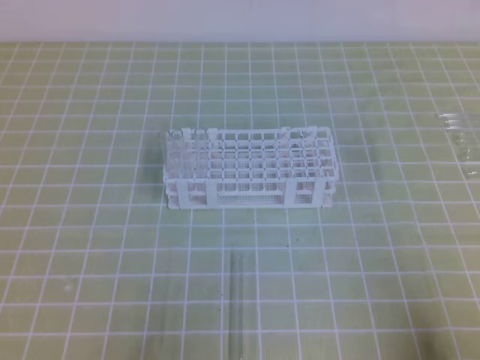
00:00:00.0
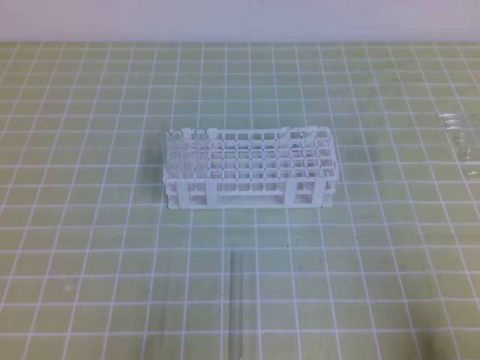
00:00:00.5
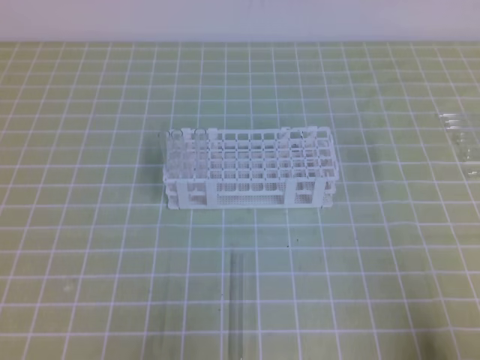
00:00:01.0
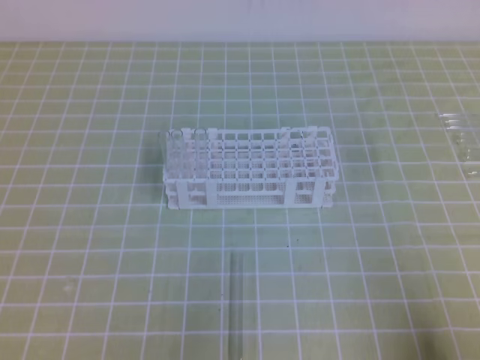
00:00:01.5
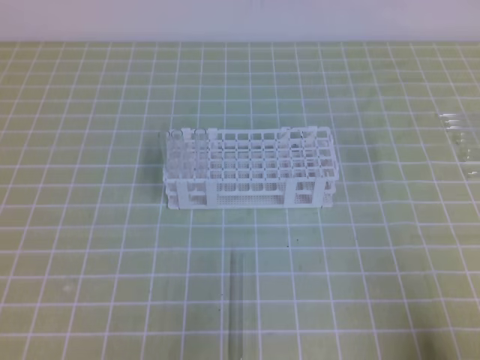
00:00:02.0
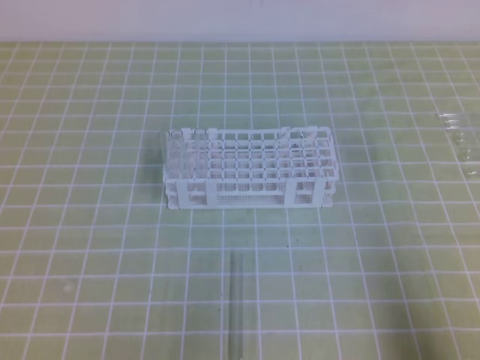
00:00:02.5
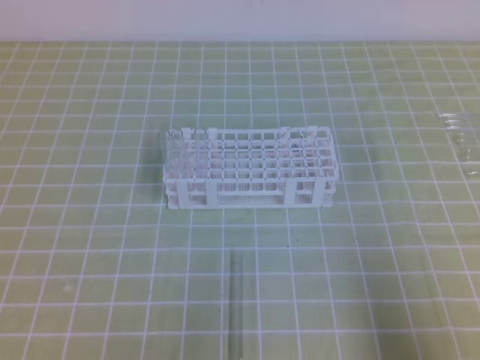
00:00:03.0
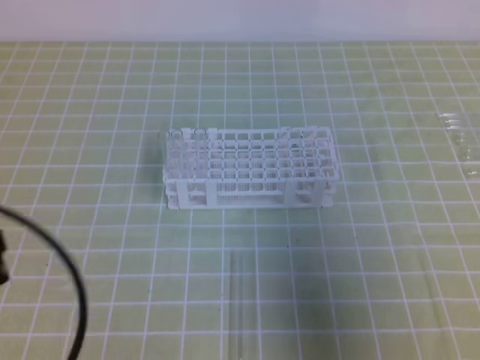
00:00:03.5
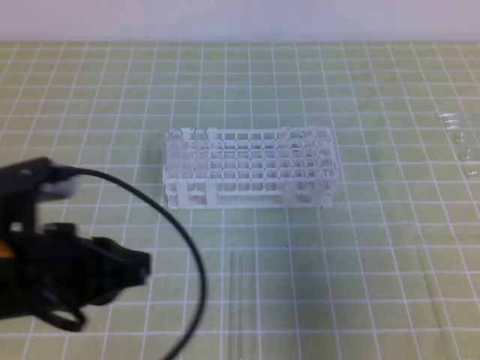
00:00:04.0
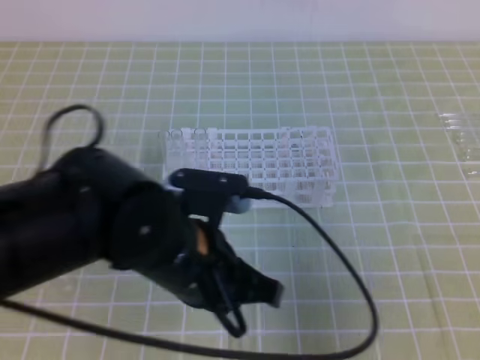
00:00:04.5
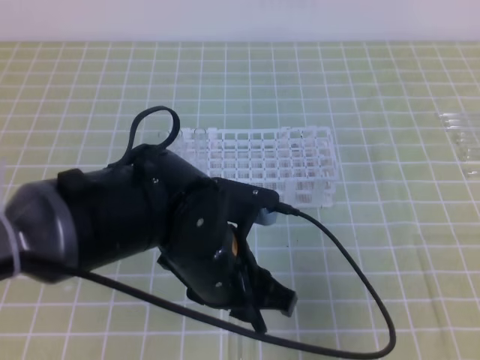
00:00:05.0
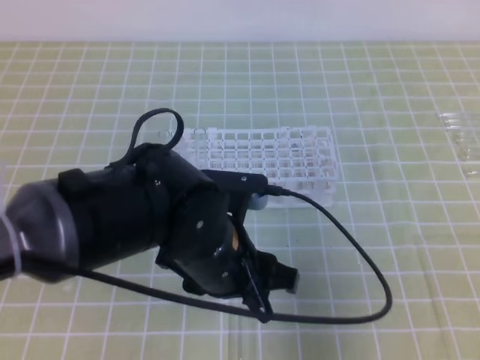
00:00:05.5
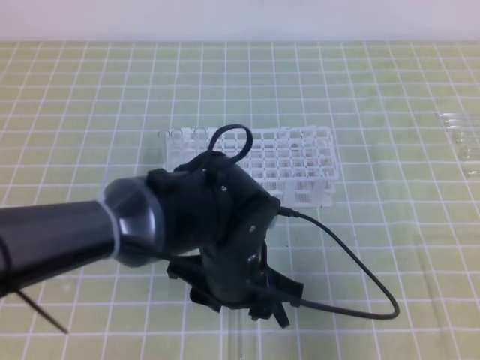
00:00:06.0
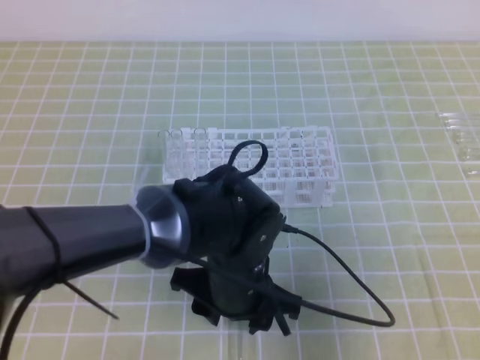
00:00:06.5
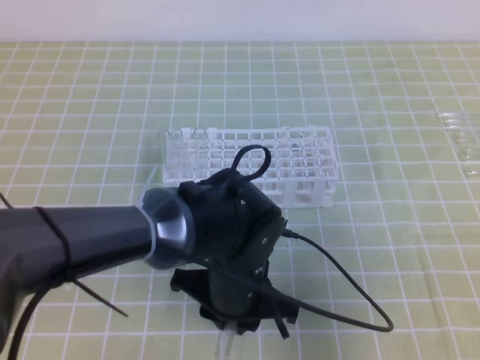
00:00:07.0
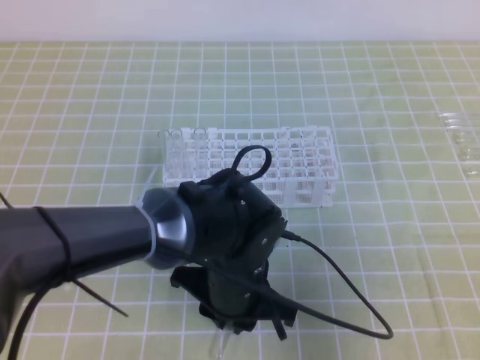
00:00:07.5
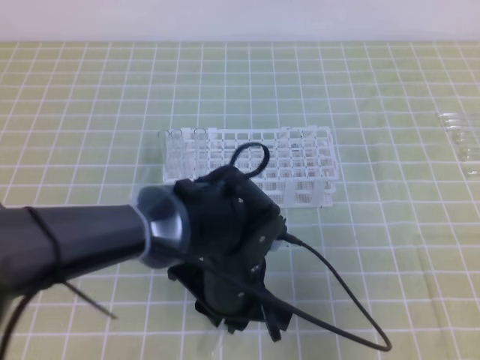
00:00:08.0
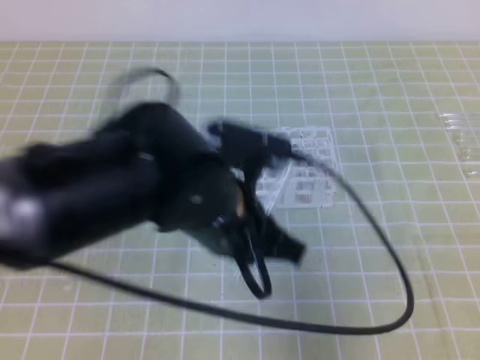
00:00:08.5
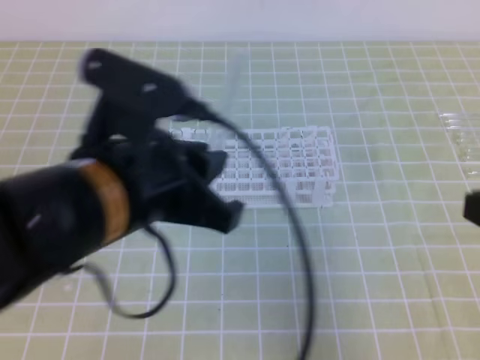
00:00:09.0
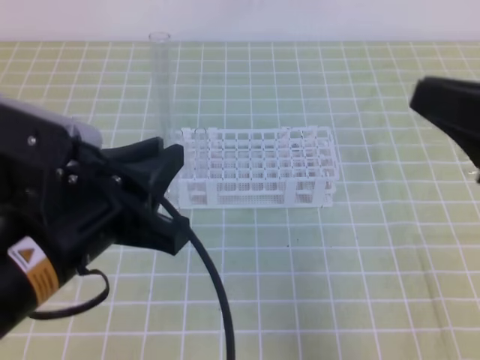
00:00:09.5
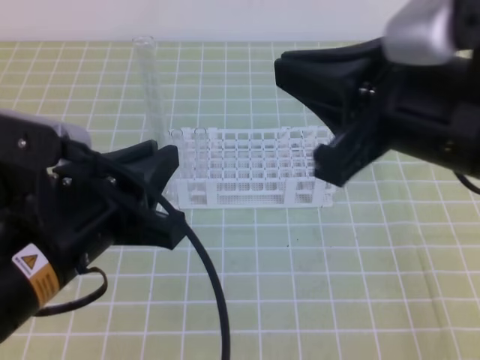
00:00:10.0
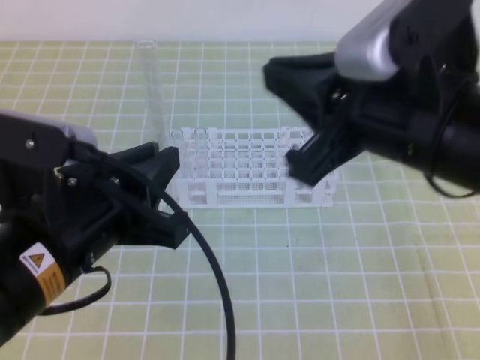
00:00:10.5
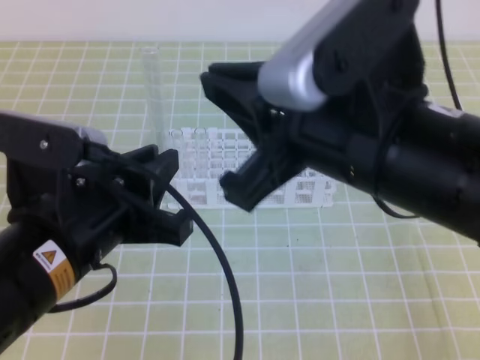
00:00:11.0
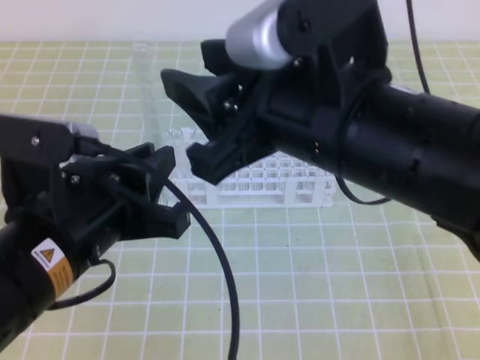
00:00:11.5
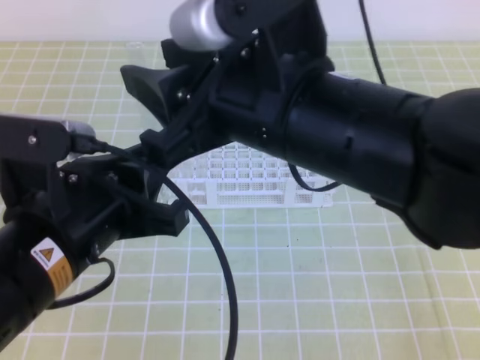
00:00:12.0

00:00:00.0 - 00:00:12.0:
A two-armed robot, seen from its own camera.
00:00:02.0 - 00:00:04.0: The left gripper heads forward, to the right and upward, covering approximately 15 cm. Meanwhile the right gripper shifts about 15 cm upward and forward.
00:00:04.0 - 00:00:06.0: The left gripper is displaced to the right and downward by approximately 20 cm, and opens.
00:00:06.0 - 00:00:08.0: The left gripper closes up.
00:00:08.0 - 00:00:10.0: The right gripper moves to the left, upward and forward, about 15 cm; the left gripper heads upward, to the left and backward, covering some 20 cm.
00:00:10.0 - 00:00:12.0: The right gripper shifts roughly 10 cm to the left, and opens.

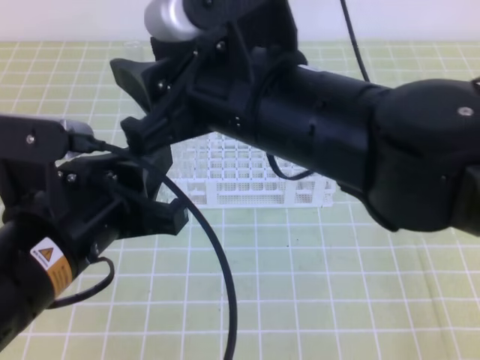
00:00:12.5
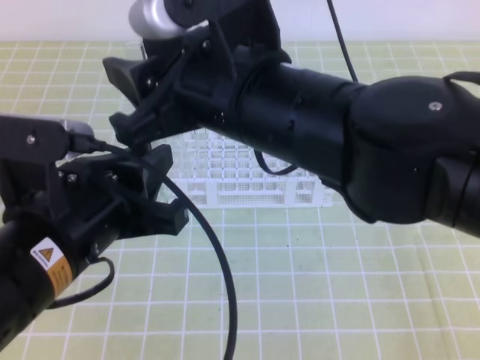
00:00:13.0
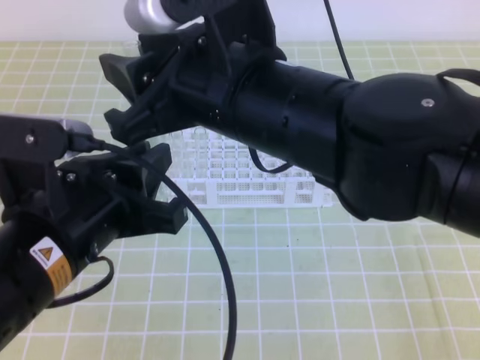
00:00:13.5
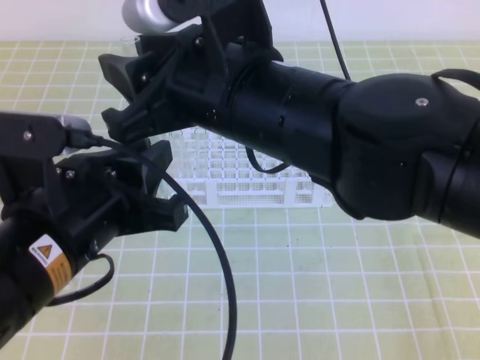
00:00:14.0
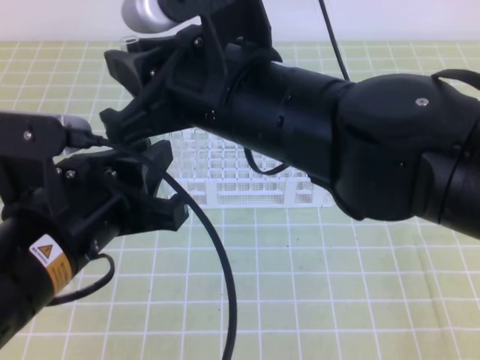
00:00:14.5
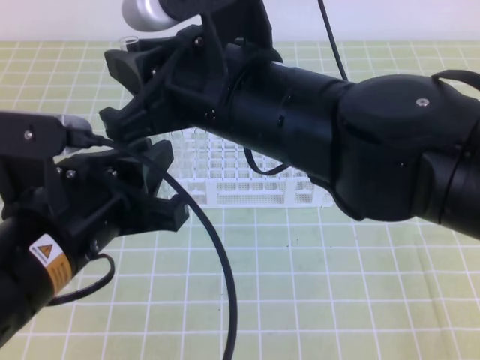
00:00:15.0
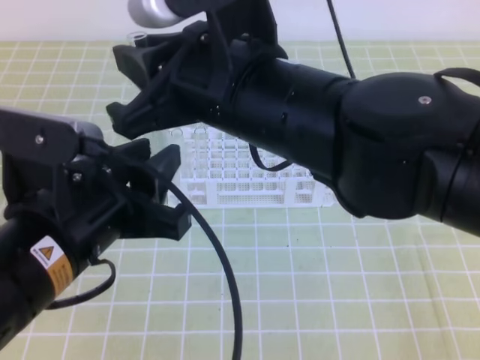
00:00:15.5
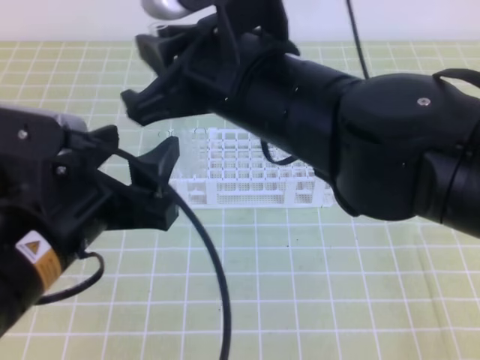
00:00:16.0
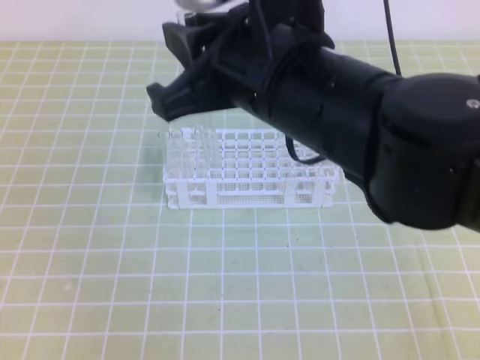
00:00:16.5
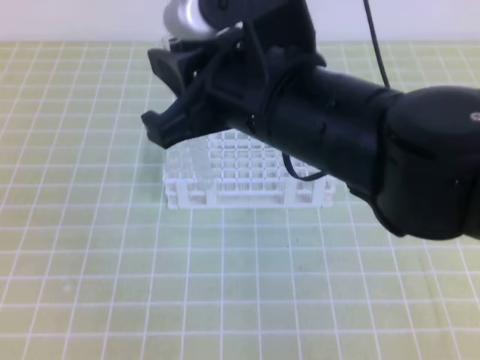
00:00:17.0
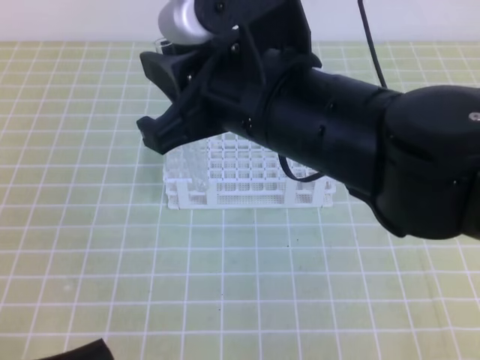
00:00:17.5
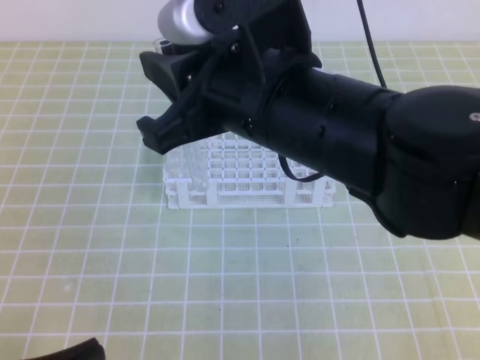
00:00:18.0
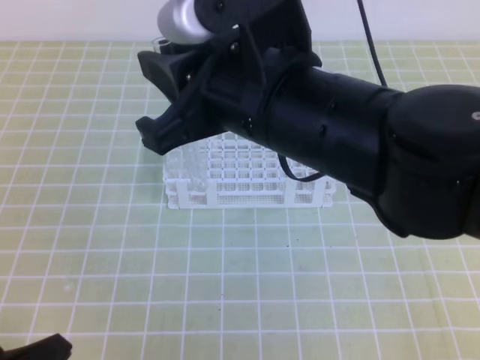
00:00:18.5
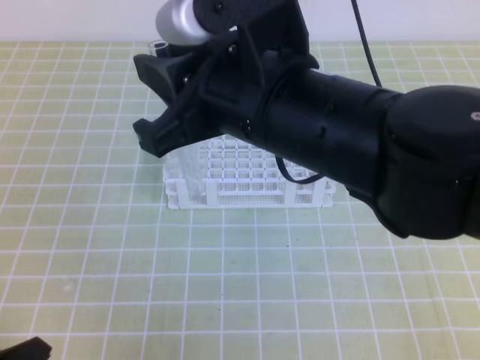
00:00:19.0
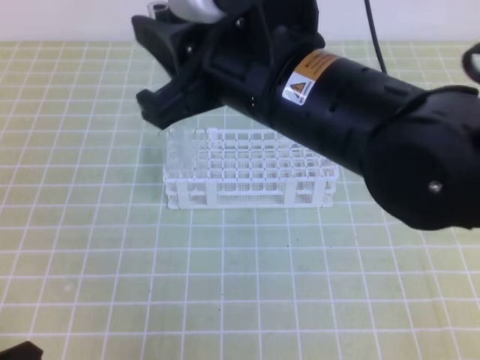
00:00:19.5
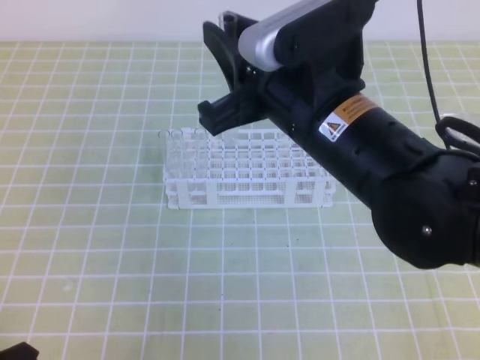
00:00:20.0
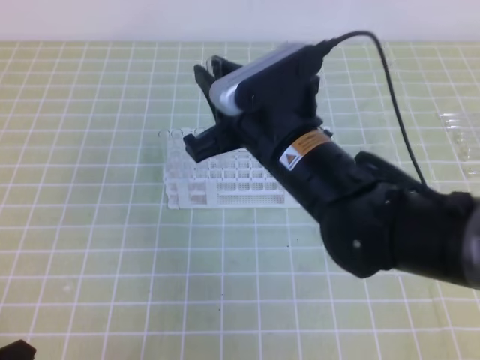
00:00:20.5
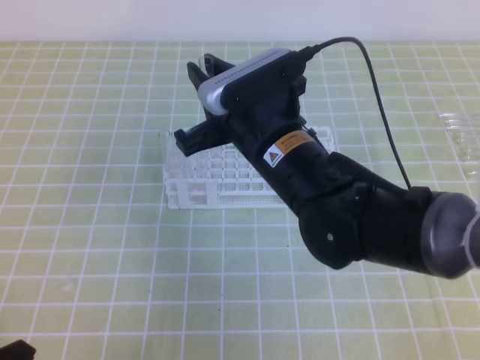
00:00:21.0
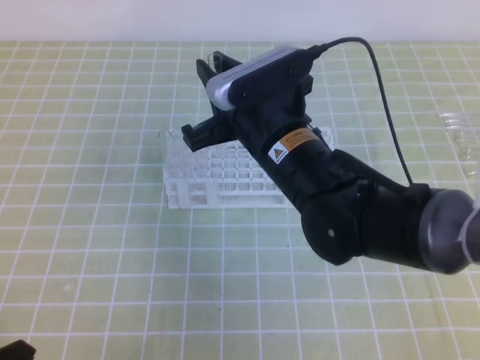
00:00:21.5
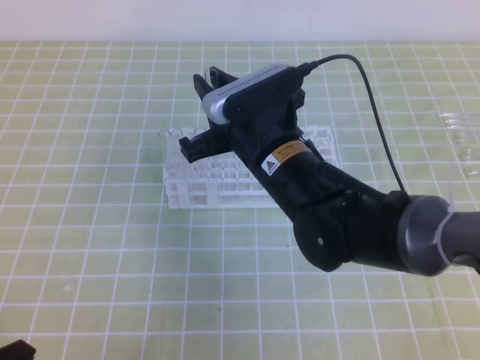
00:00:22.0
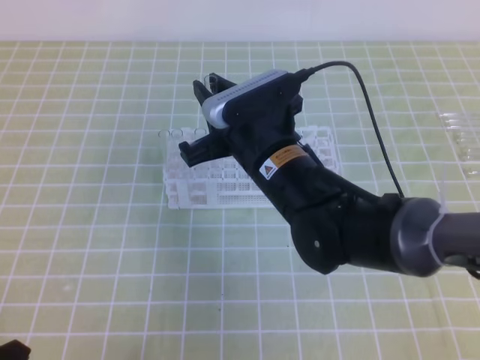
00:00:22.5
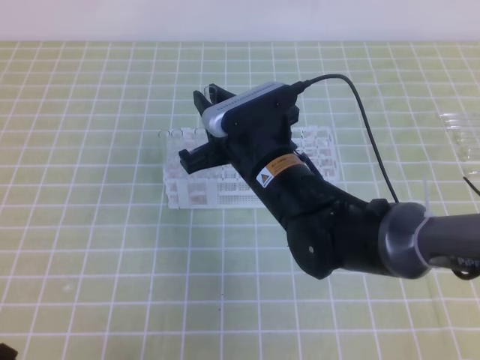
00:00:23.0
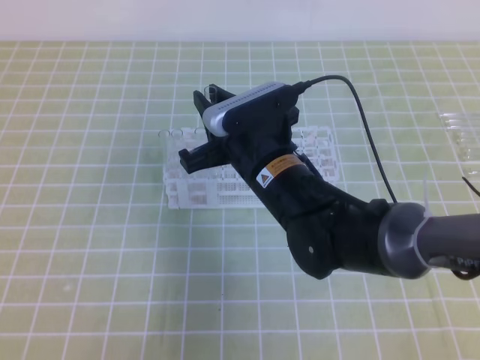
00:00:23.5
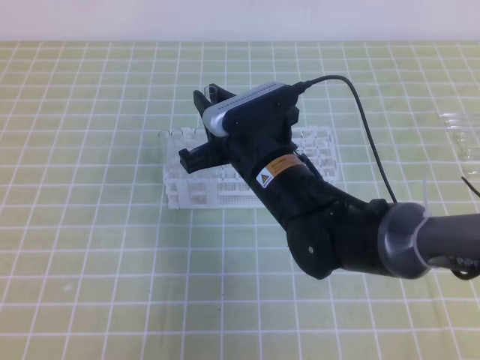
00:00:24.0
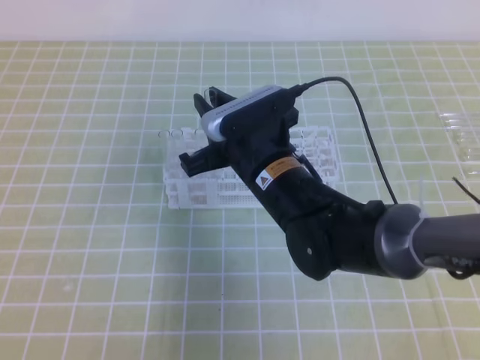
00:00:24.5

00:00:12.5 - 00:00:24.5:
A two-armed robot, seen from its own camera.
00:00:12.5 - 00:00:14.5: The right gripper closes its fingers.
00:00:14.5 - 00:00:16.5: The left gripper travels to the left and backward by approximately 10 cm, and opens, then closes again.
00:00:16.5 - 00:00:18.5: The left gripper moves downward, approximately 15 cm.
00:00:18.5 - 00:00:20.5: The right gripper travels downward and forward by roughly 10 cm.
00:00:20.5 - 00:00:22.5: The right gripper travels downward by roughly 5 cm.
00:00:22.5 - 00:00:24.5: The left gripper moves approximately 5 cm.

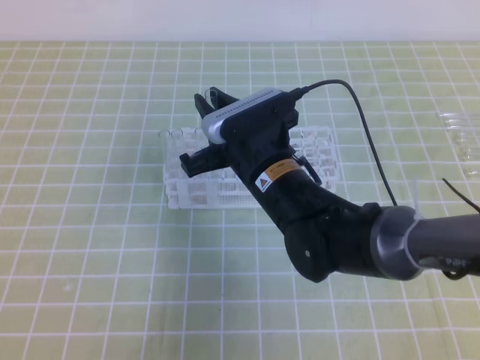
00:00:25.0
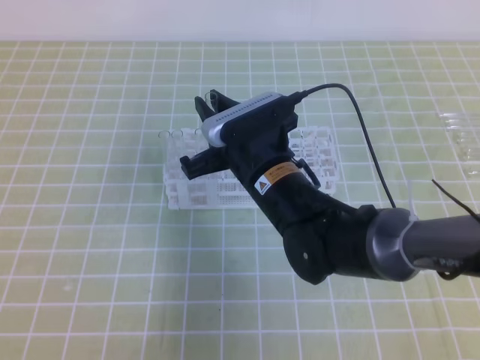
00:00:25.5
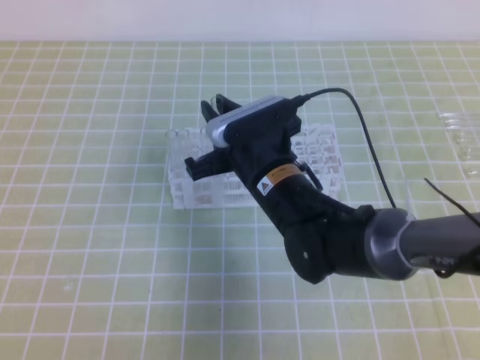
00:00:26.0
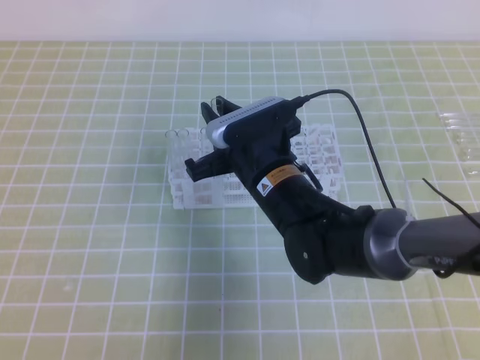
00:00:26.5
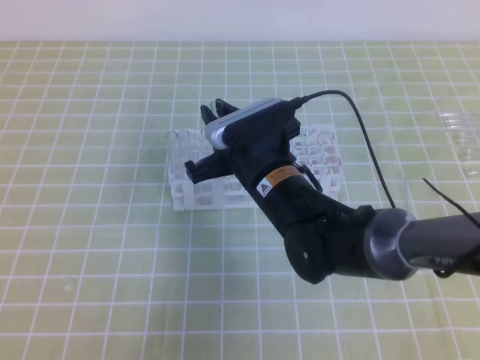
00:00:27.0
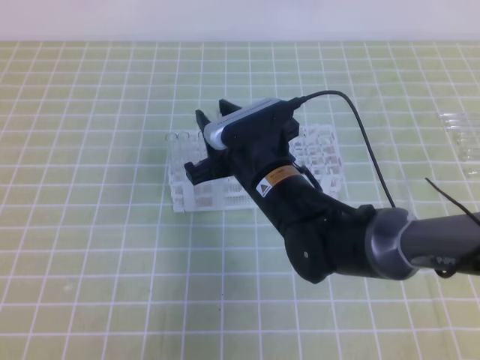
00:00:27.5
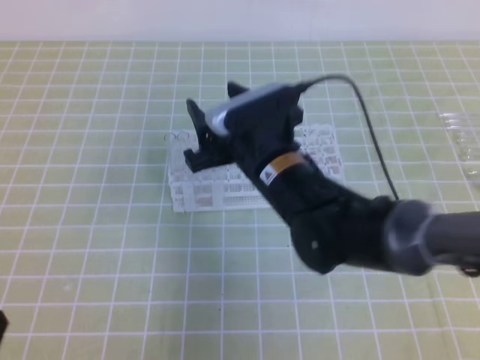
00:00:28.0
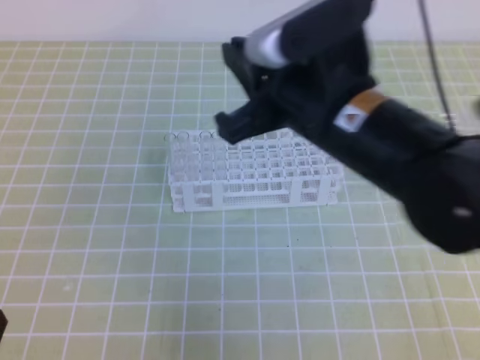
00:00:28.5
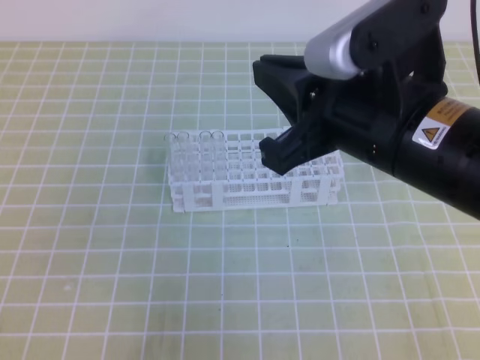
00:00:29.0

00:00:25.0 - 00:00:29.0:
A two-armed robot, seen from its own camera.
00:00:25.0 - 00:00:27.0: There are only small adjustments of the grippers.
00:00:27.0 - 00:00:29.0: The right gripper travels upward, backward and to the right by roughly 20 cm, and opens and closes again.
